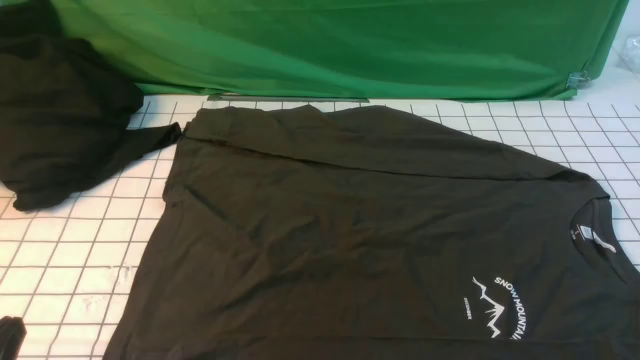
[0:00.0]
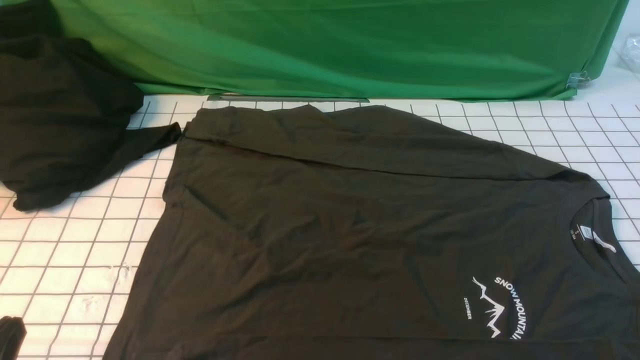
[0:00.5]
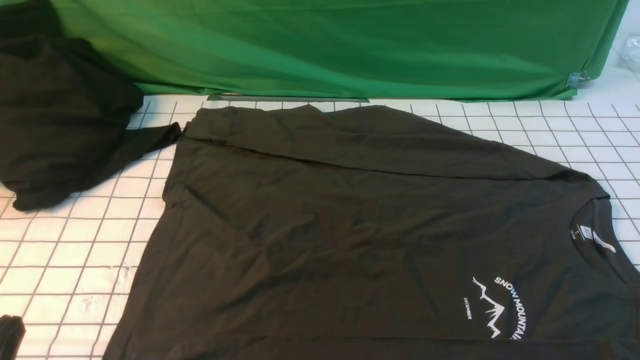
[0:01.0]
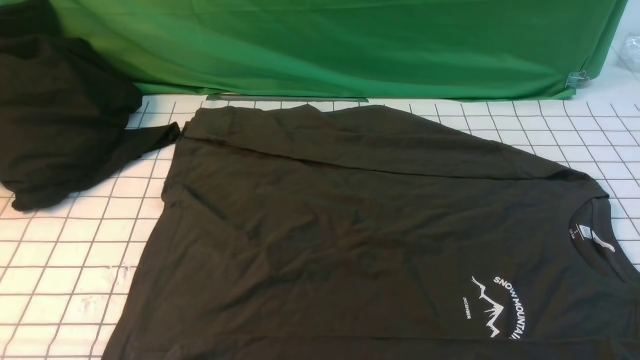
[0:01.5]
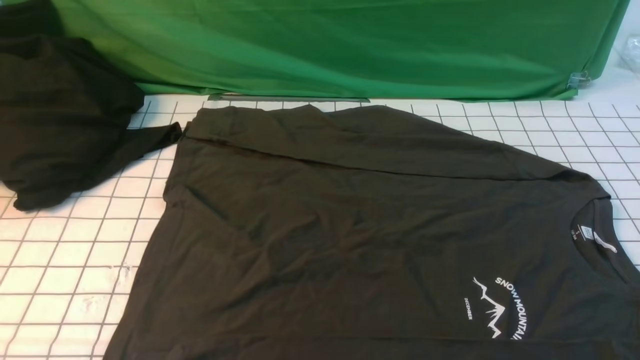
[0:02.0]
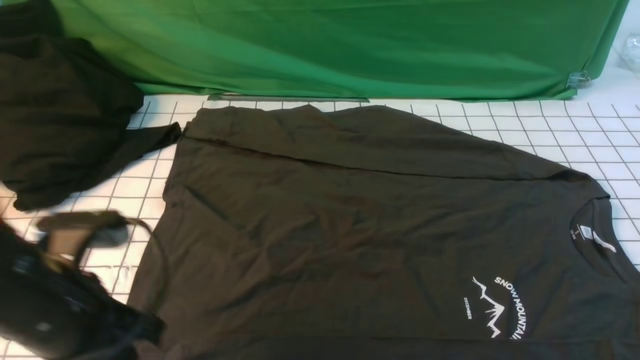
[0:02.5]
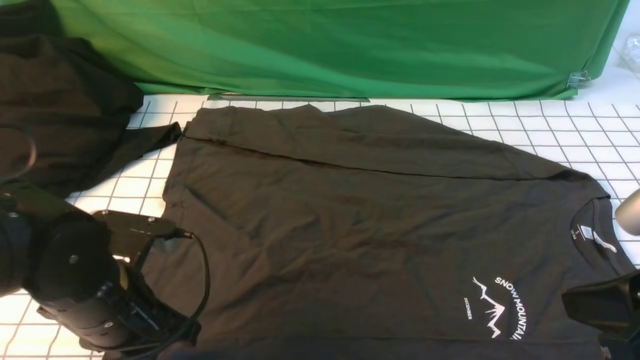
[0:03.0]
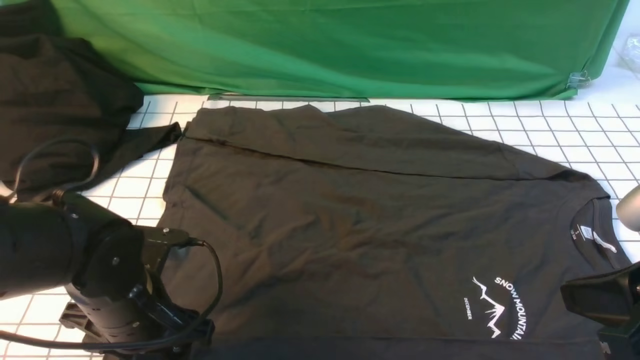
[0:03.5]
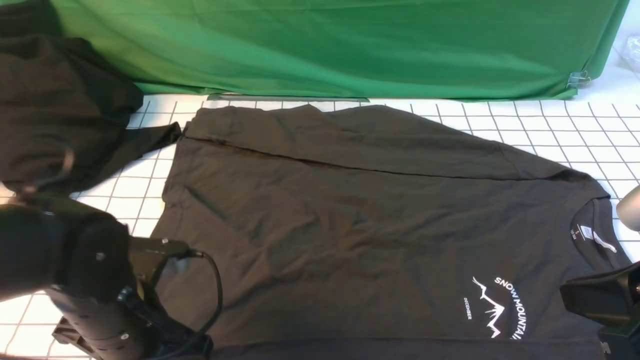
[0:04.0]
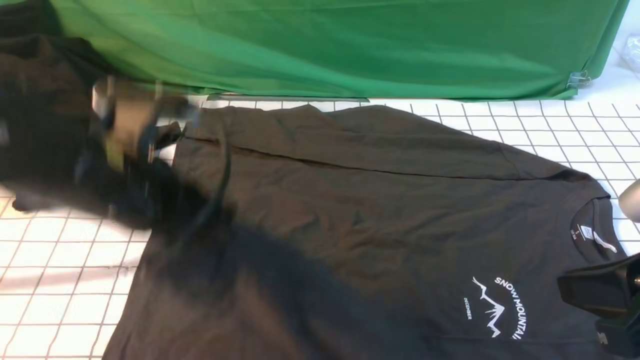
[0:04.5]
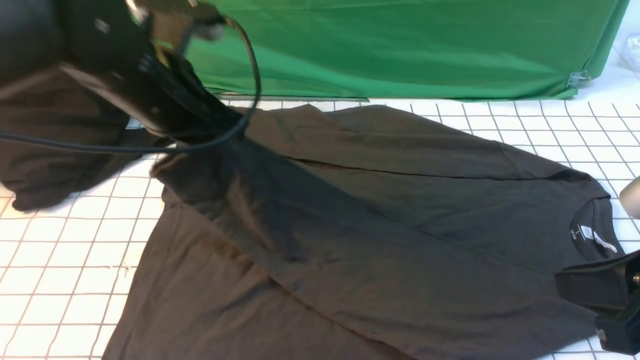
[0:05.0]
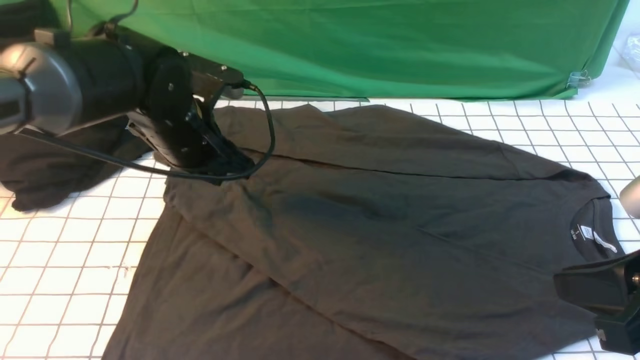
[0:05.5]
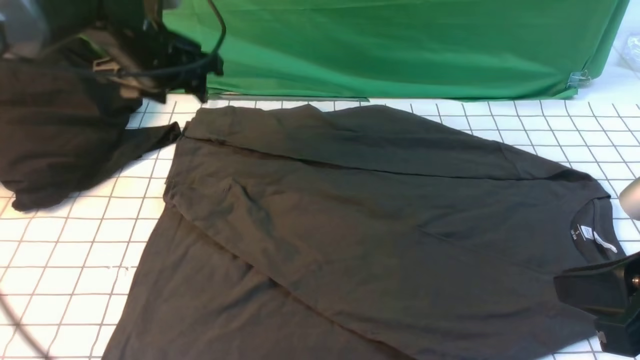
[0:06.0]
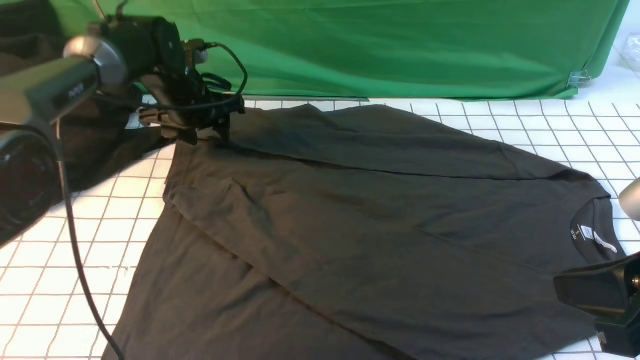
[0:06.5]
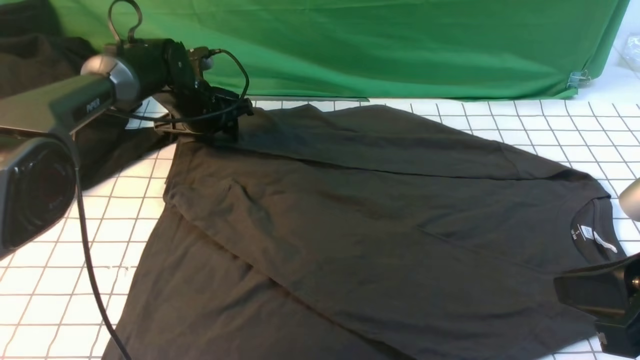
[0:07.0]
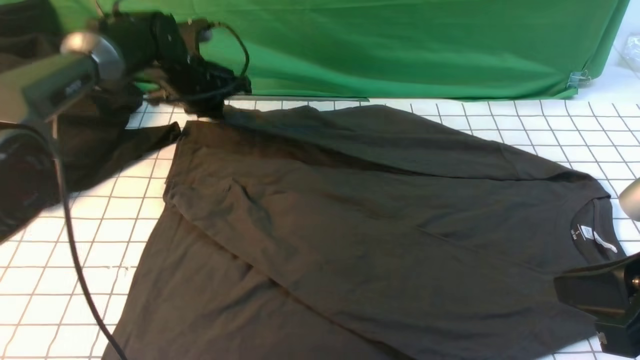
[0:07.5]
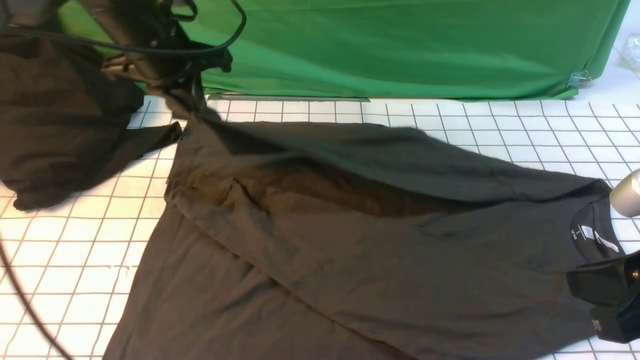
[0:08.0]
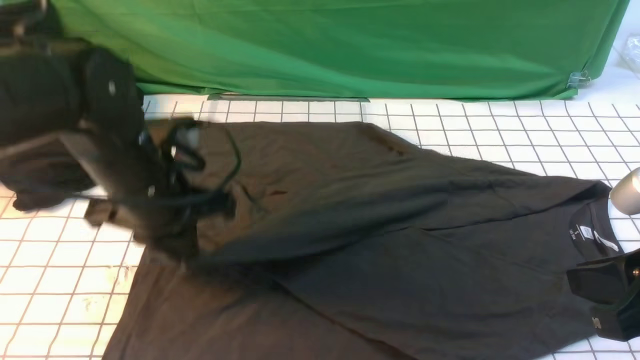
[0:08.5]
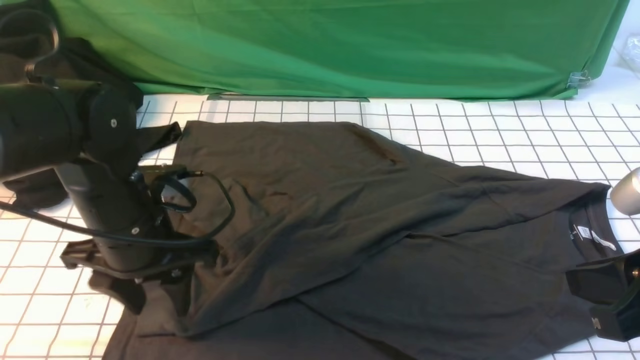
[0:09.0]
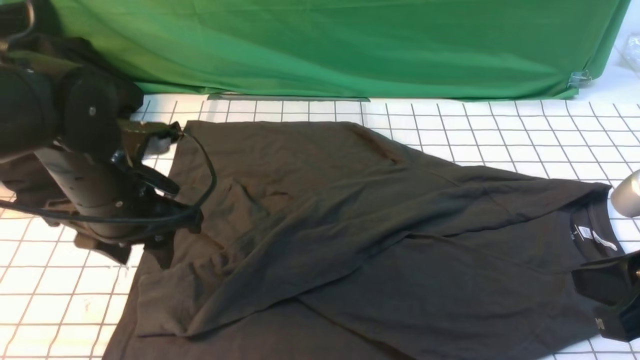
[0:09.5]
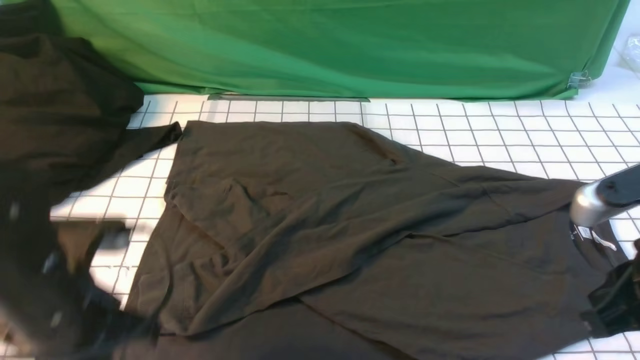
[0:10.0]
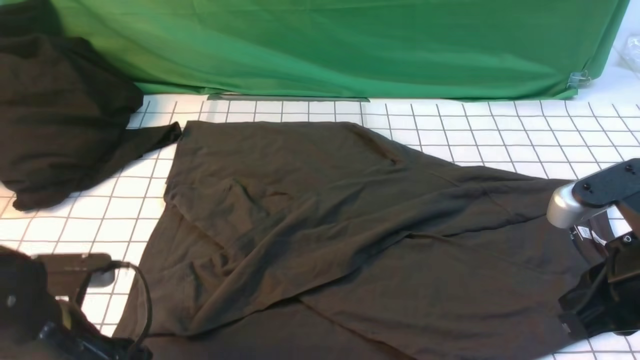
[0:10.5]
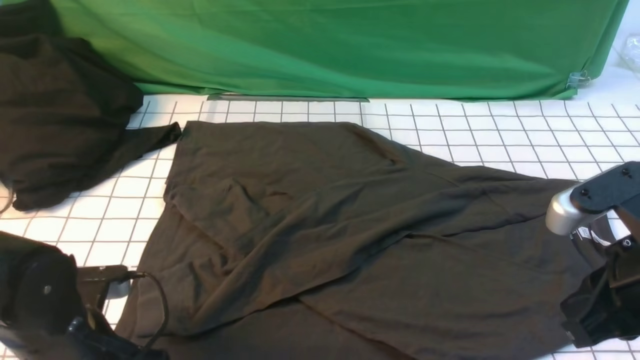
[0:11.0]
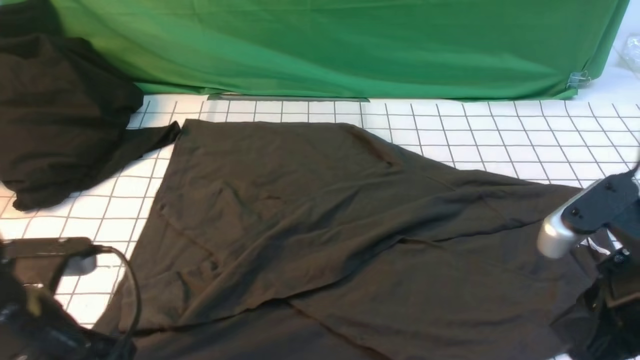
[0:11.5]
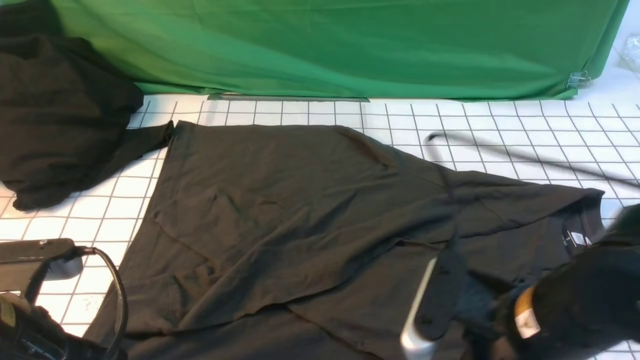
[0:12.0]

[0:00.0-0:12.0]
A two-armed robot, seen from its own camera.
Step, 0:00.0 to 0:04.0: use the left arm to clamp the cuff closest to it.
Step, 0:04.5 to 0:05.5: use the left arm to drag and place the cuff at the centered position on the left edge of the fabric.
Step, 0:06.0 to 0:07.0: use the left arm to clamp the cuff farthest from it.
Step, 0:08.0 to 0:09.0: use the left arm to drag and drop the cuff onto the cuff closest to the left arm.
0:02.0 to 0:04.0: The right gripper travels to the left, forward and upward by approximately 15 cm. Meanwhile the left gripper goes approximately 20 cm downward, forward and to the right, and opens and closes again.
0:04.0 to 0:06.0: The left gripper shifts some 25 cm forward, and opens its fingers.
0:06.0 to 0:08.0: The left gripper travels downward and back again, roughly 10 cm each way, and closes up.
0:08.0 to 0:10.0: The left gripper moves backward, about 20 cm, and opens, then closes once more.
0:10.0 to 0:12.0: The right gripper travels to the left and downward by about 10 cm, and opens up; the left gripper is displaced backward by roughly 5 cm, travels downward and back again, approximately 5 cm each way, and opens, then closes again.

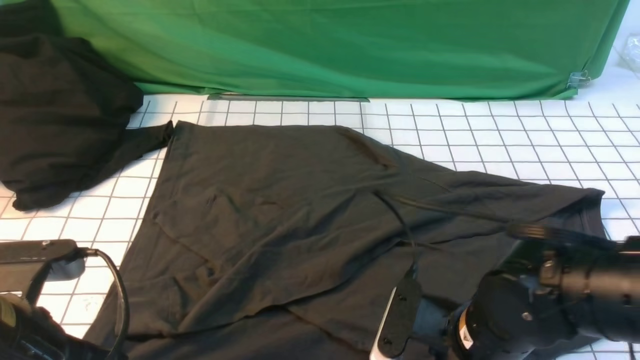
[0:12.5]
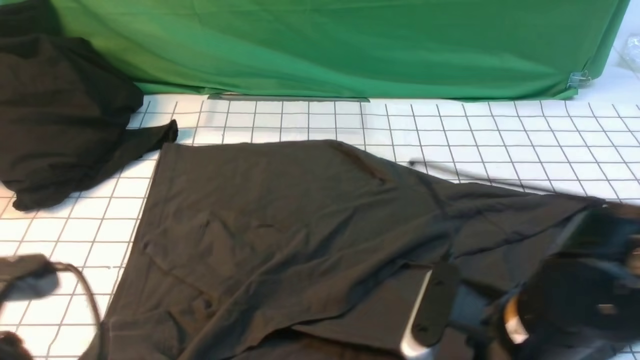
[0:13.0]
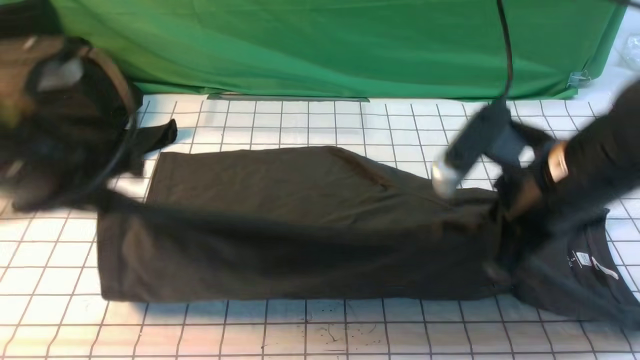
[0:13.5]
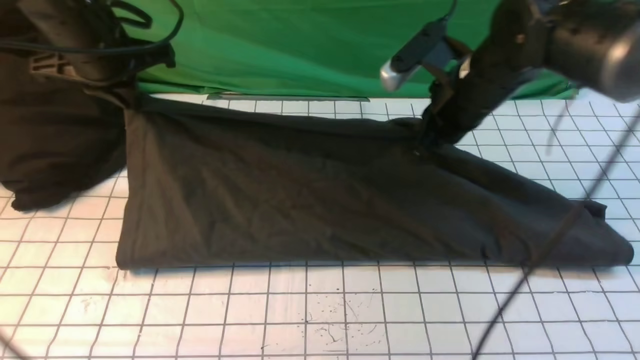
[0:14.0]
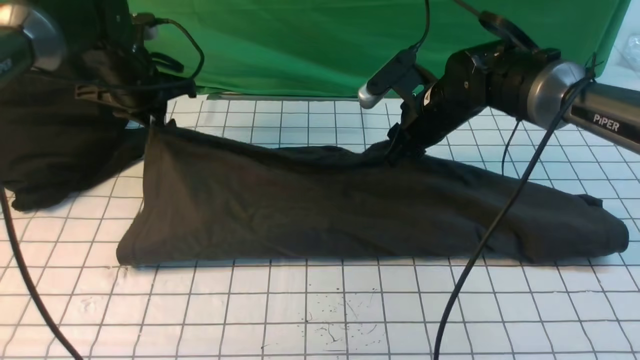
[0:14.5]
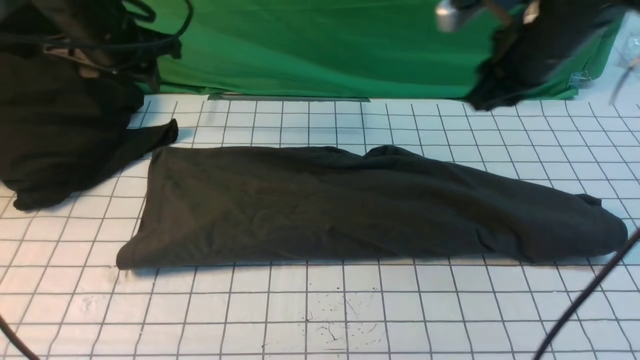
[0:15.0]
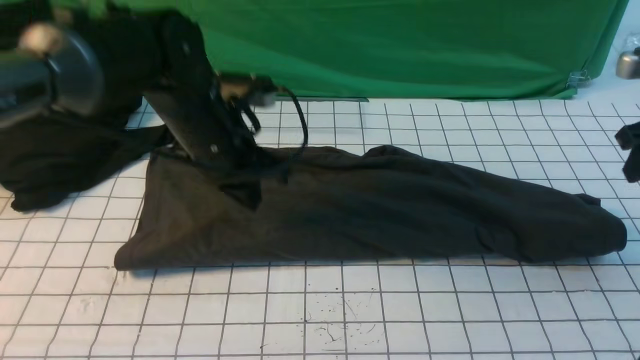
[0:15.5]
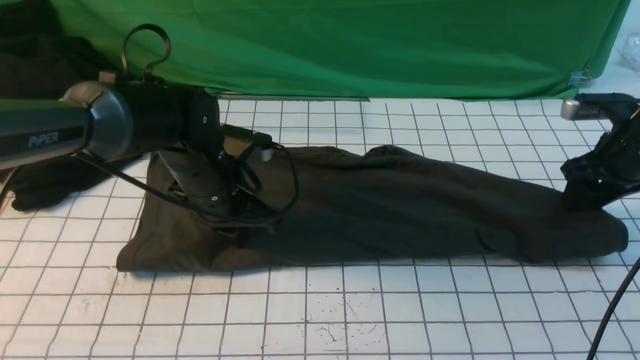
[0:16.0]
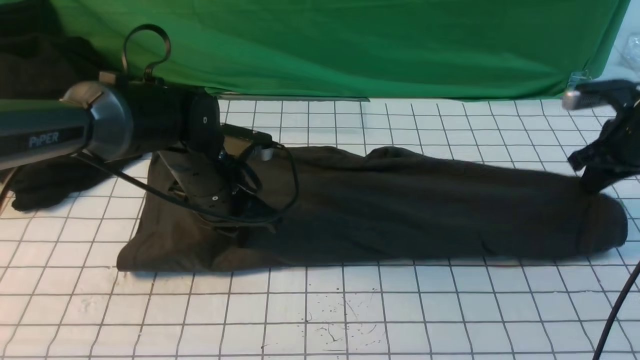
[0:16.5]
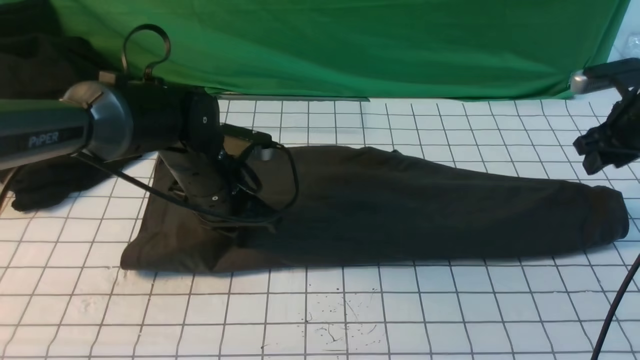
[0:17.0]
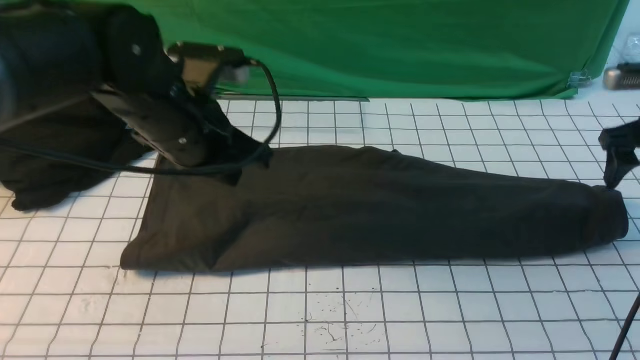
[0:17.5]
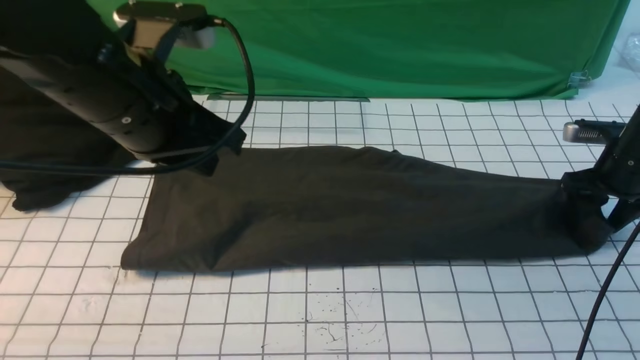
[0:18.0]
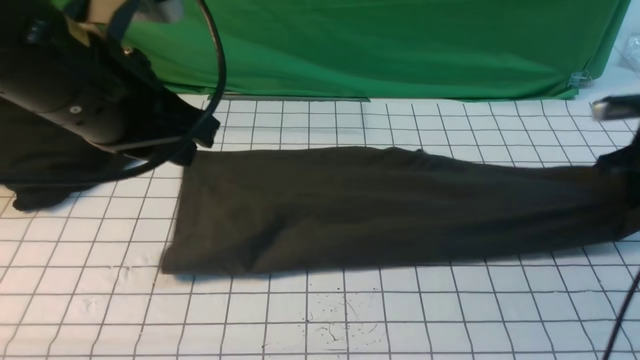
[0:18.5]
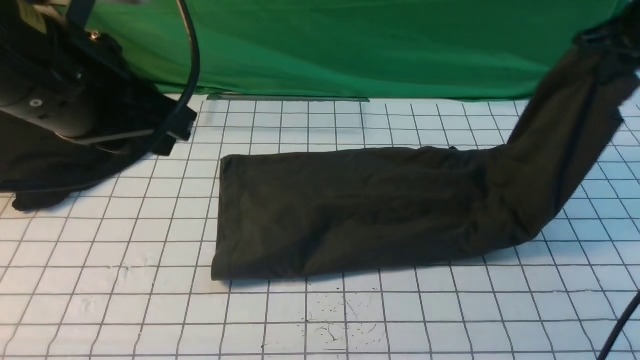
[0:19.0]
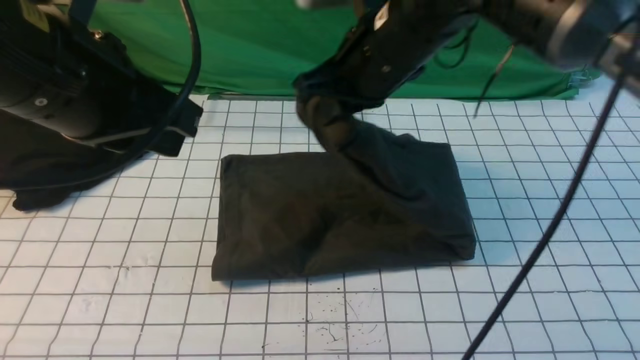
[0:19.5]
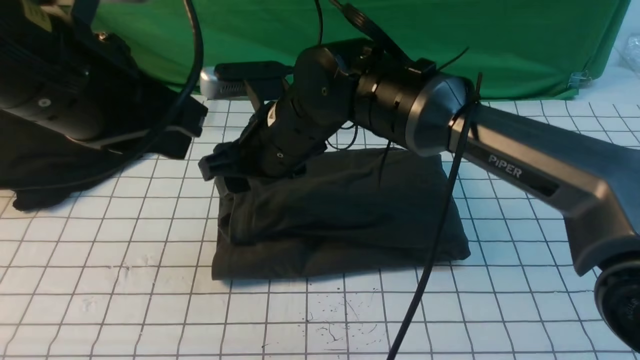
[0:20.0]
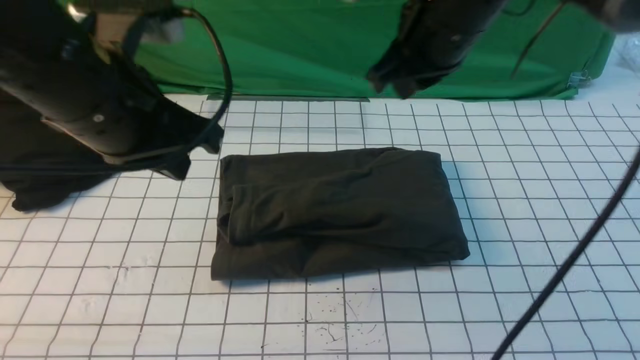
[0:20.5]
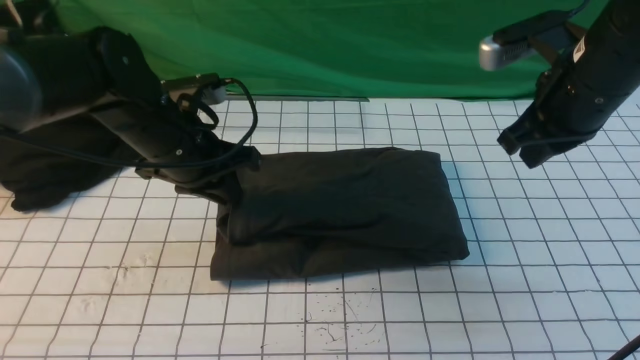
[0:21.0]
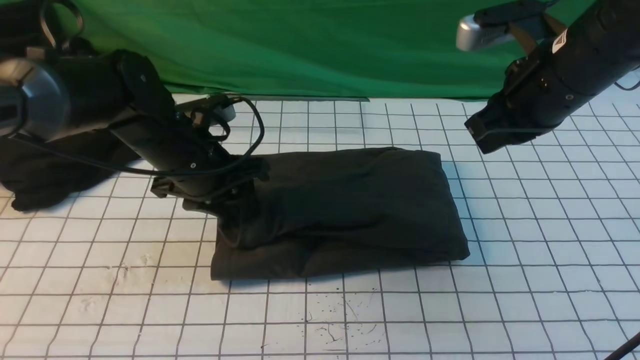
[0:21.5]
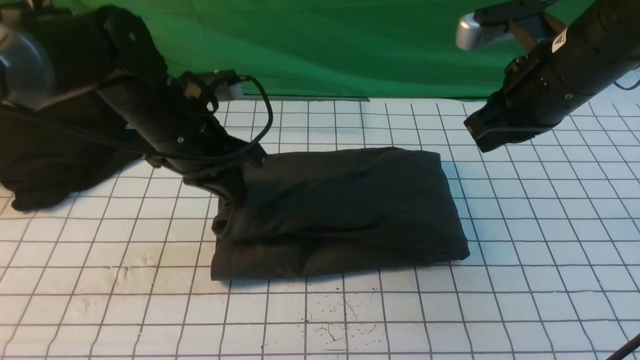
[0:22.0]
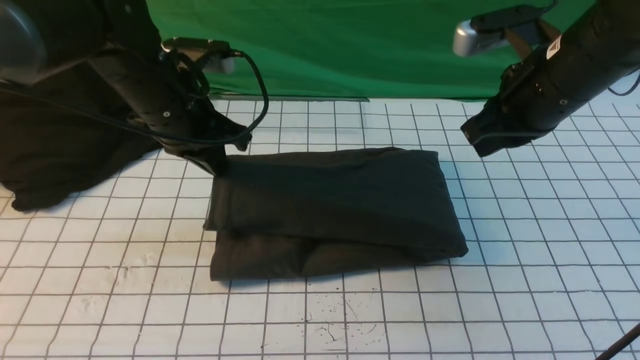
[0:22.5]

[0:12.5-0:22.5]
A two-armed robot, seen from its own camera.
Step, 0:13.5 to 0:14.5: use both arms to drag the lower edge of the fabric forward and fold it over the upper edge.
Step, 0:15.0 to 0:18.5: use the right arm to clamp the right edge of the fabric.
Step, 0:19.0 to 0:20.0: use the right arm to drag the right edge of the fabric to the left and folds it over the left edge.
0:12.5 to 0:14.5: The grippers both shift forward by approximately 30 cm. The right gripper closes and opens again. The left gripper opens its fingers.
0:14.5 to 0:16.5: The right gripper is displaced to the right by roughly 25 cm, and closes; the left gripper shifts approximately 20 cm to the right, backward and downward, and closes up.
0:16.5 to 0:18.5: The right gripper opens, then closes again. Meanwhile the left gripper travels upward and backward by approximately 25 cm.
0:18.5 to 0:20.5: The right gripper shifts approximately 30 cm to the left and upward, and opens and closes again. Meanwhile the left gripper changes place by about 5 cm.
0:20.5 to 0:22.5: The left gripper travels forward and downward by about 15 cm, and opens, then closes once more. Meanwhile the right gripper heads to the right, covering roughly 10 cm.
